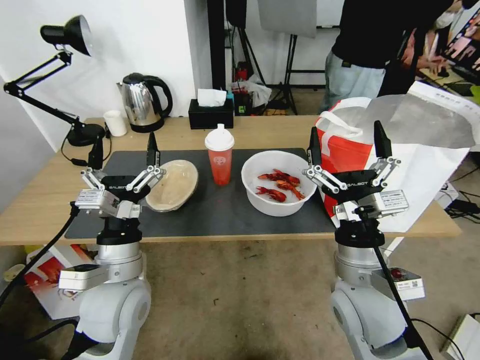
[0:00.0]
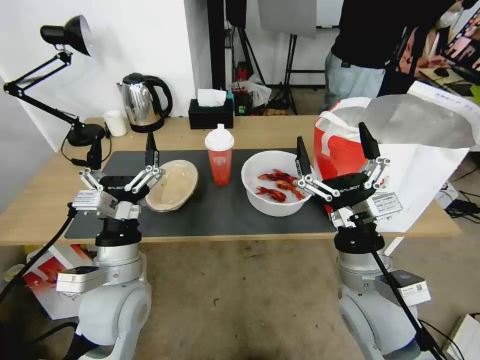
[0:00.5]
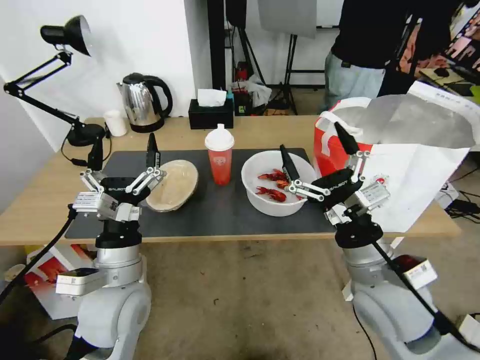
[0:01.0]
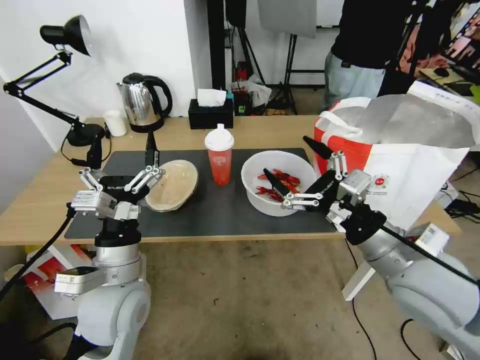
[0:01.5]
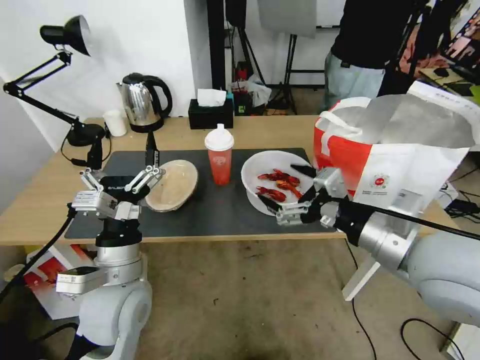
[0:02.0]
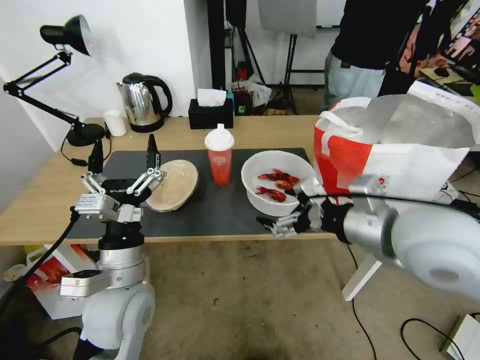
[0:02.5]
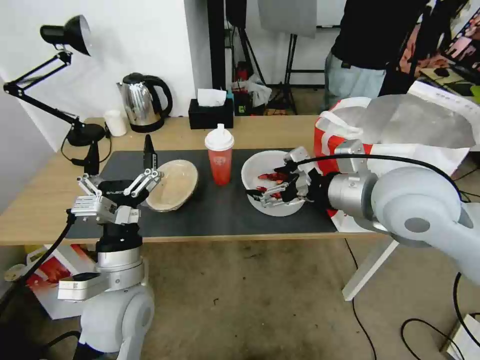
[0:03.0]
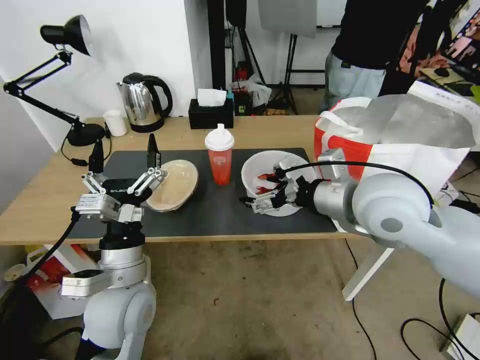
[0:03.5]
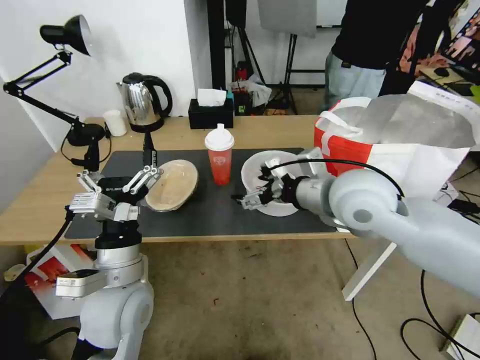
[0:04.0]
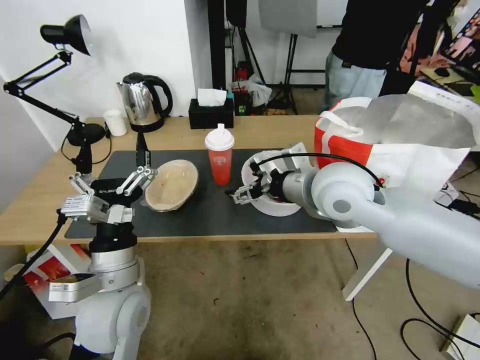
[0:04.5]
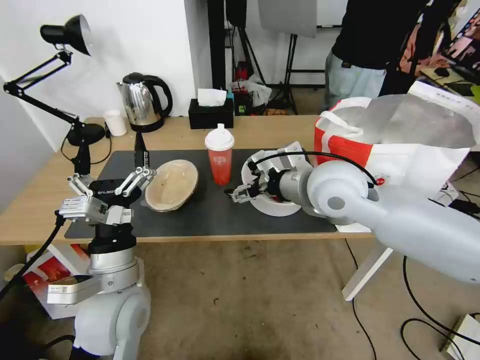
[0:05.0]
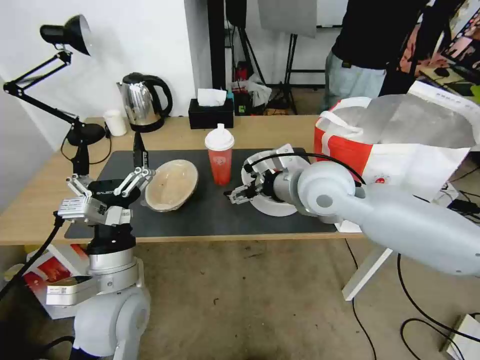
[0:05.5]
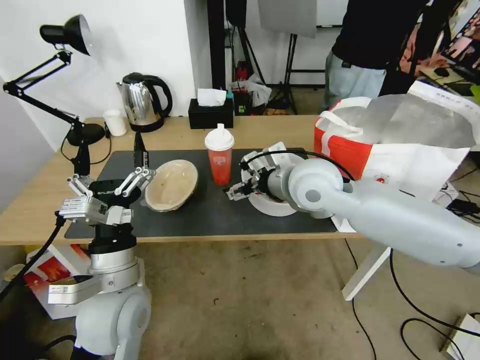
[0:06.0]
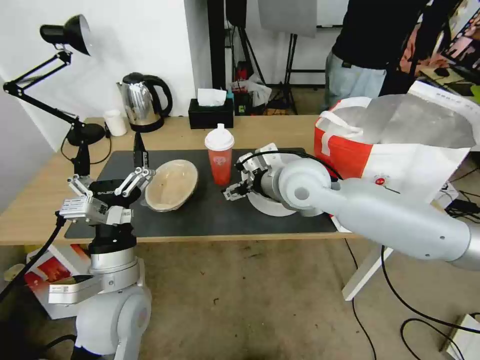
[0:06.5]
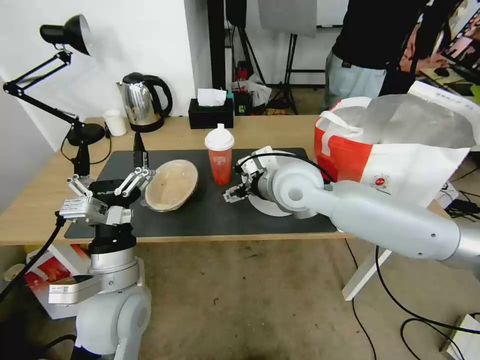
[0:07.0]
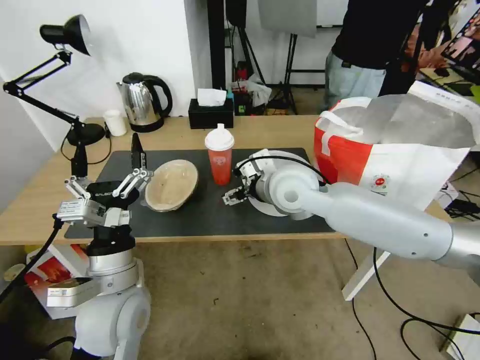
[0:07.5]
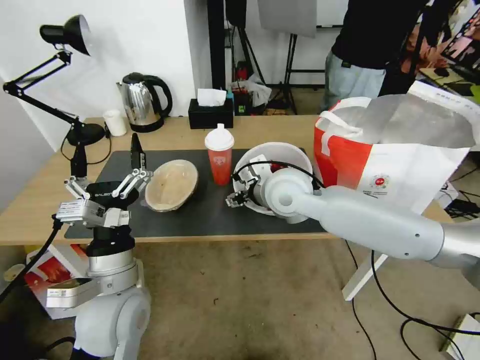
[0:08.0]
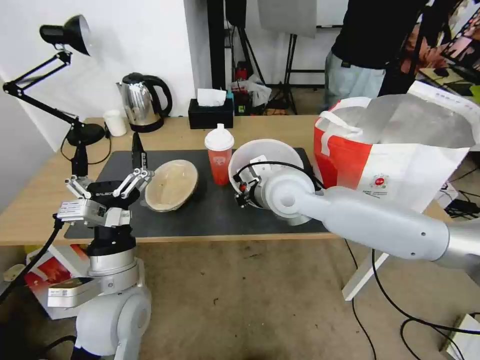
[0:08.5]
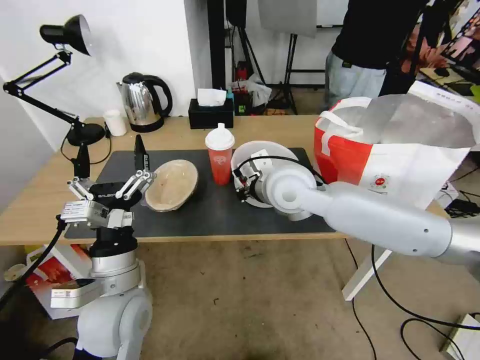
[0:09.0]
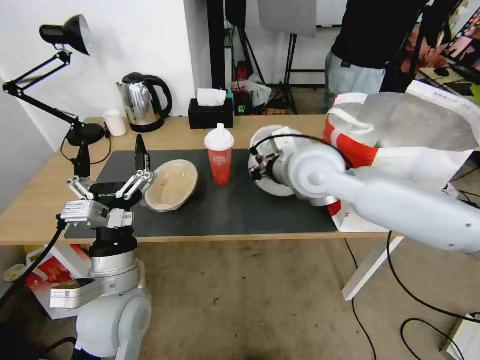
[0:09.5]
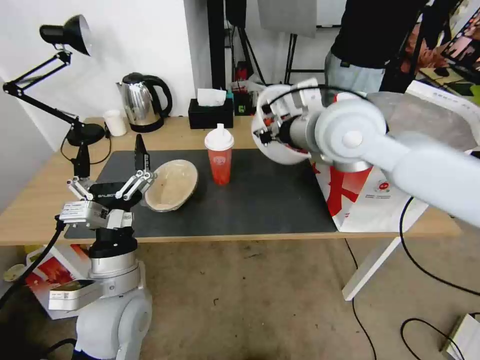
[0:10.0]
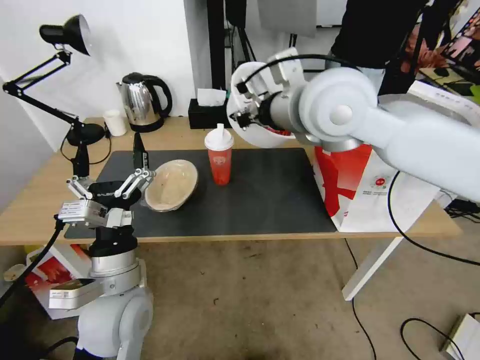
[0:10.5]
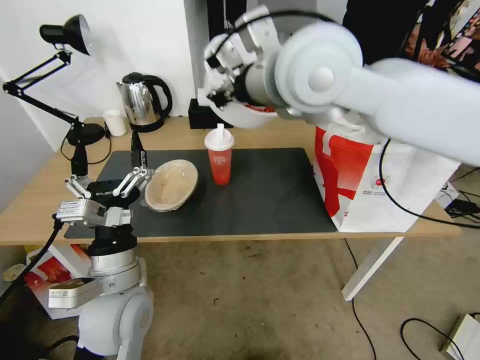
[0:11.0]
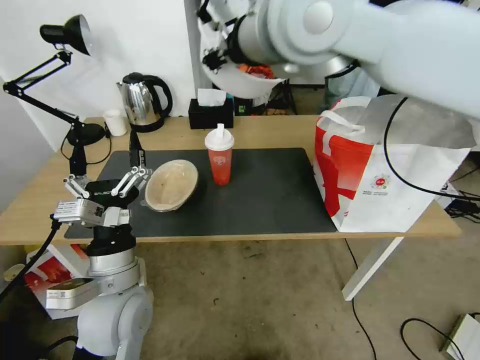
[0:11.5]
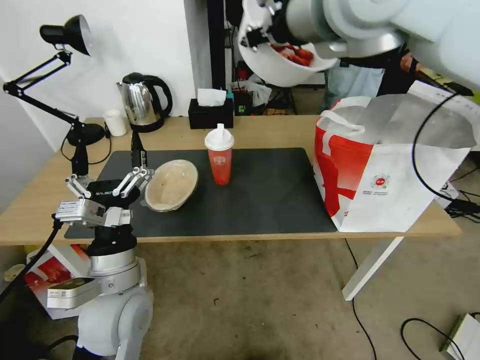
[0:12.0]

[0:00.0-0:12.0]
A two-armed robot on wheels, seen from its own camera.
Task of the whole recording: Pick up the trash from the table and place it into the takeout bag.
2.0 to 4.0 s: The right gripper is displaced forward and to the left by approximately 10 cm.
4.0 to 6.0 s: The right gripper goes some 10 cm to the left and forward.
6.0 to 8.0 s: The right gripper ends up approximately 5 cm from where it was.
8.0 to 10.0 s: The right gripper moves upward and to the right, approximately 15 cm, and closes up.
10.0 to 12.0 s: The right gripper heads upward, covering roughly 15 cm.

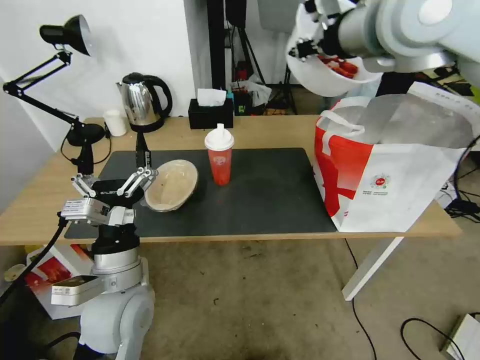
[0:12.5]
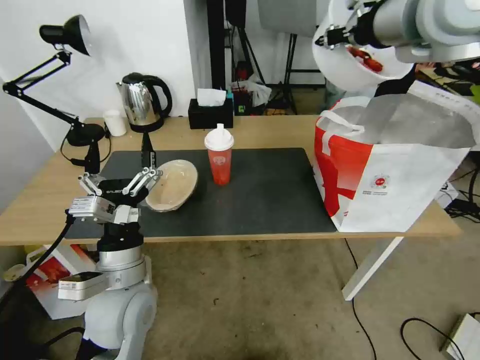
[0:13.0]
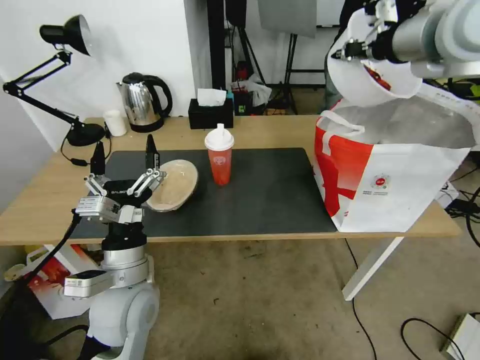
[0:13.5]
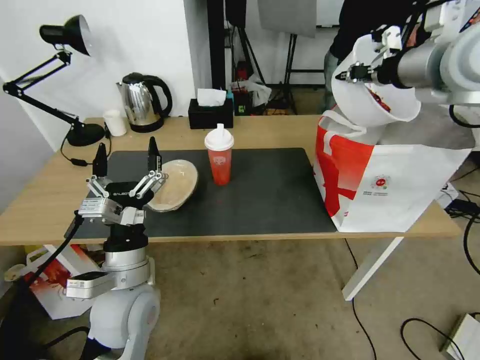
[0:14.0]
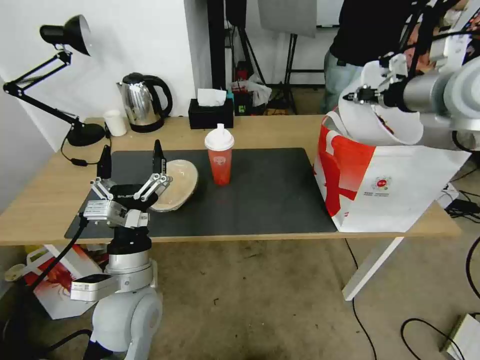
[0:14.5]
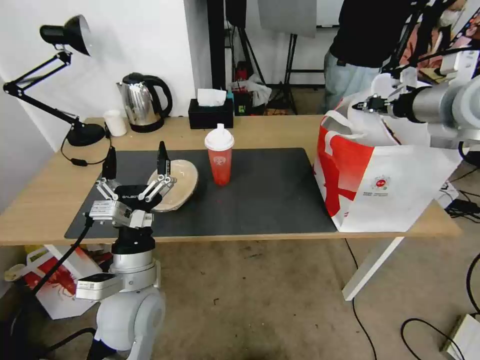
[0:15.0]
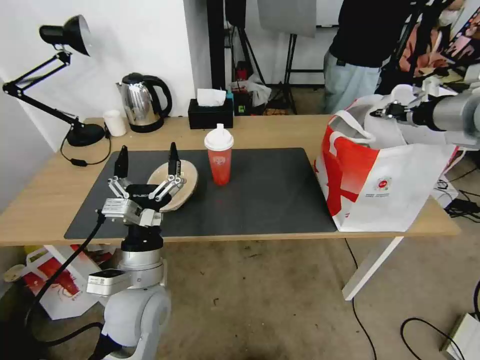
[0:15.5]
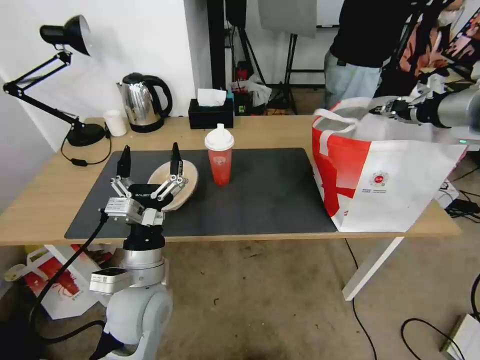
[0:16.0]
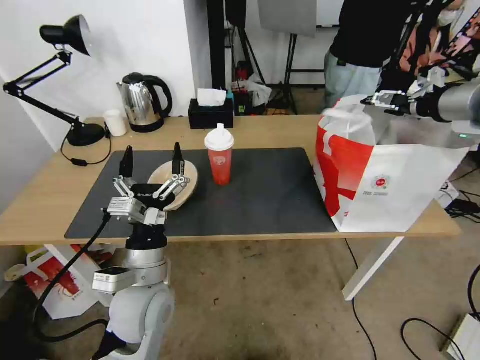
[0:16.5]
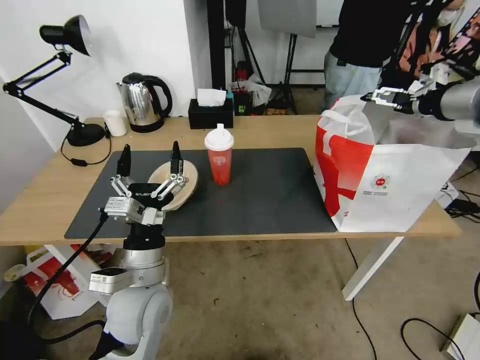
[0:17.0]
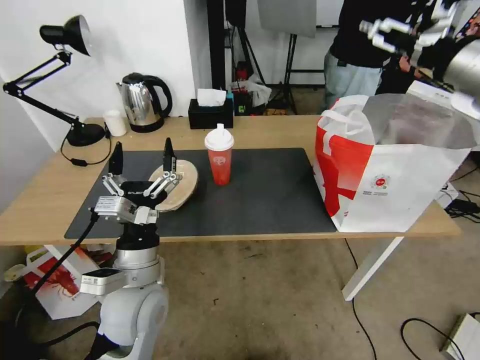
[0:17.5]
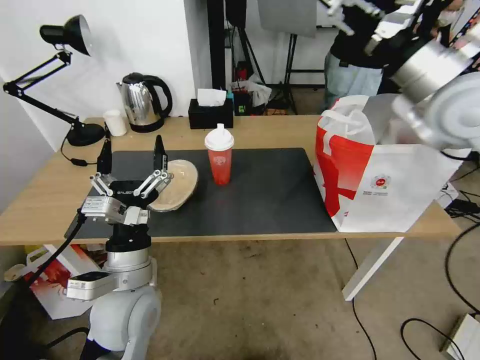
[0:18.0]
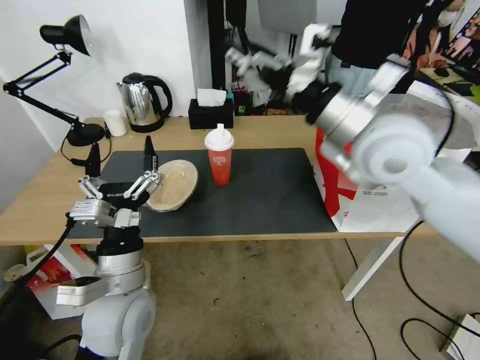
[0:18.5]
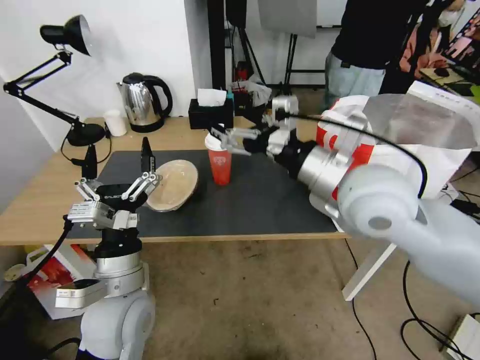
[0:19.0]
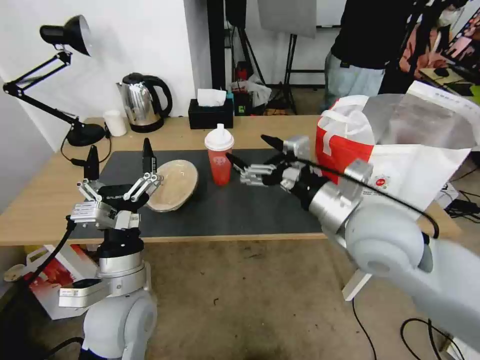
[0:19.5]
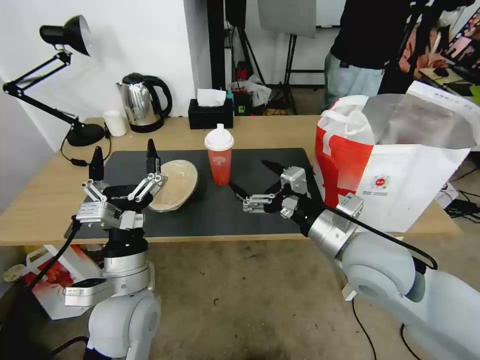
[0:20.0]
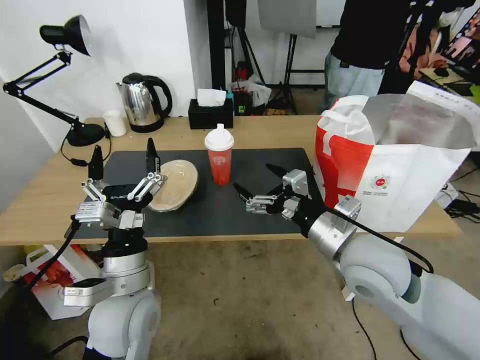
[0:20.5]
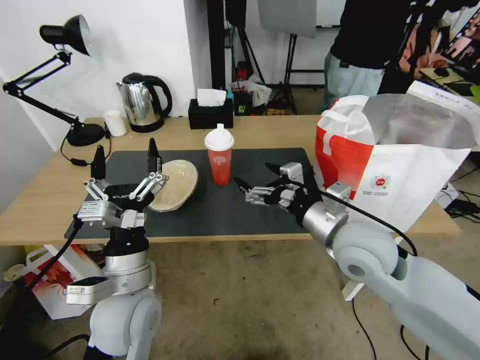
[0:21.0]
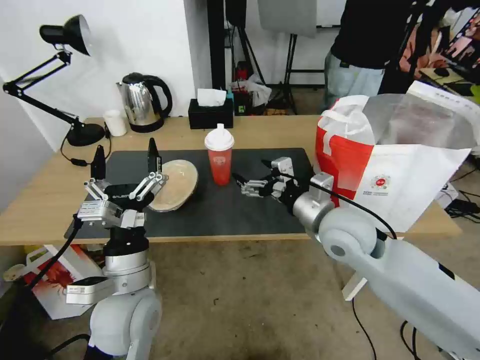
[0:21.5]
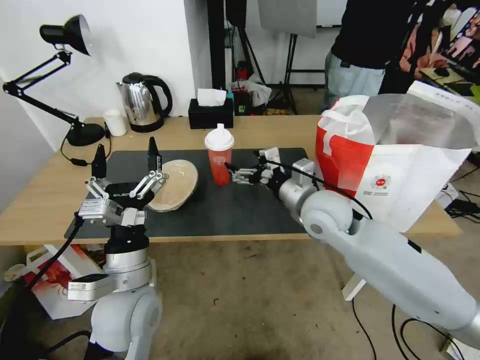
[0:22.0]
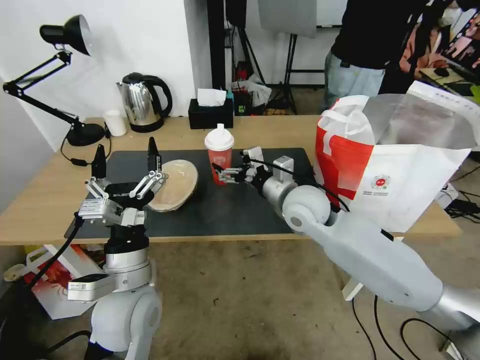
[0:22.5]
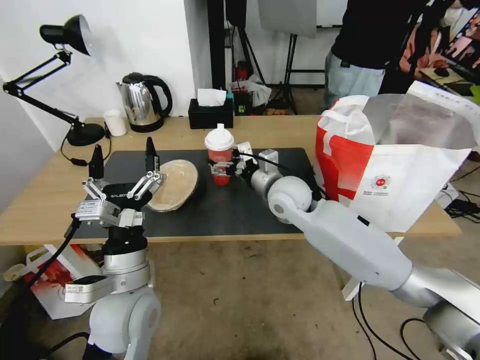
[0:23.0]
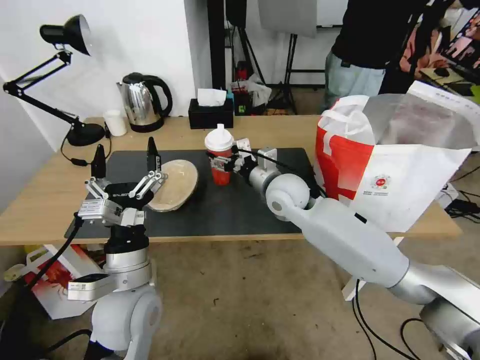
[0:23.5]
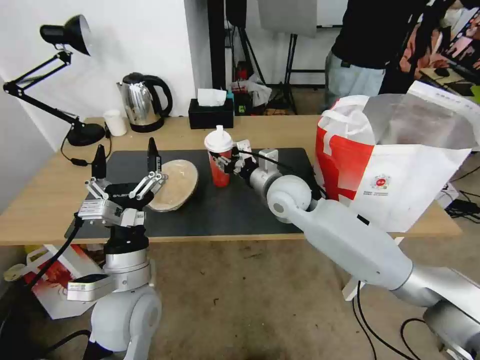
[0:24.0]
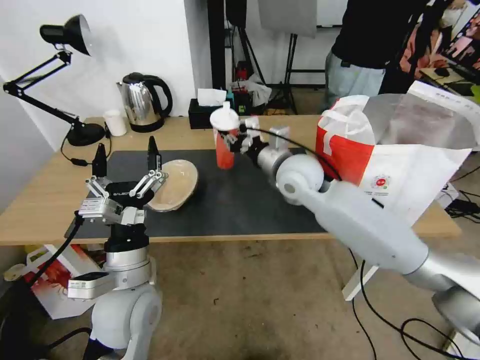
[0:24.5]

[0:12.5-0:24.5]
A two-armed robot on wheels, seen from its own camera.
Task of the whole recording: Pick up the trash from the table and place it into the takeout bag.
12.5 to 14.5 s: The right gripper shifts some 20 cm to the right and downward.
14.5 to 16.5 s: The right gripper moves to the right, about 5 cm, and opens.
16.5 to 18.5 s: The right gripper travels to the left by roughly 20 cm.
18.5 to 20.5 s: The right gripper goes approximately 20 cm downward and backward.
20.5 to 22.5 s: The right gripper travels forward and to the left by roughly 15 cm.
22.5 to 24.5 s: The right gripper shifts by some 5 cm, and closes up.

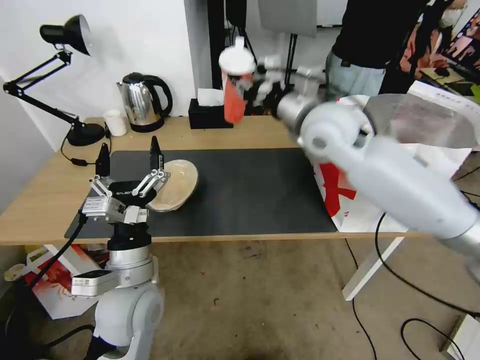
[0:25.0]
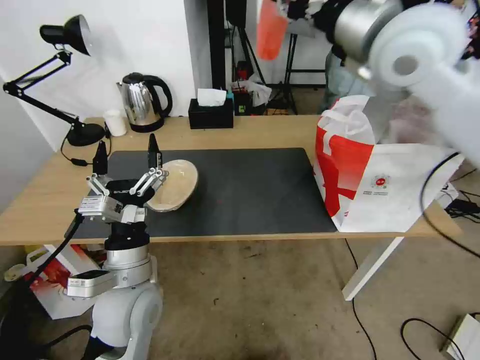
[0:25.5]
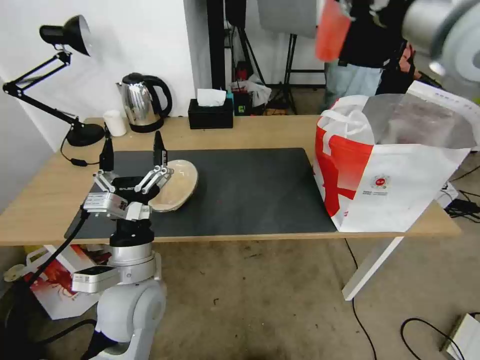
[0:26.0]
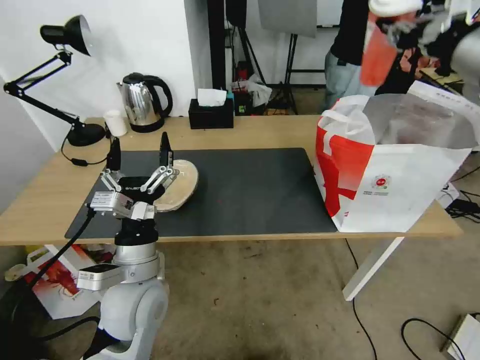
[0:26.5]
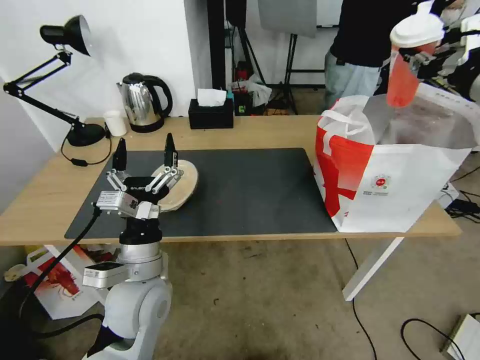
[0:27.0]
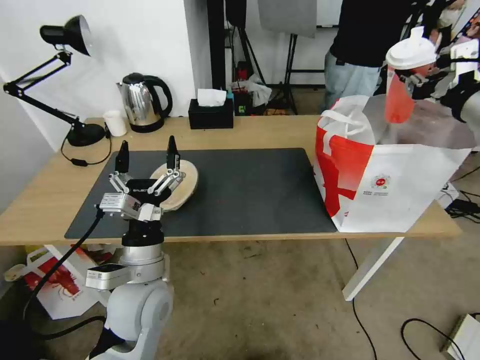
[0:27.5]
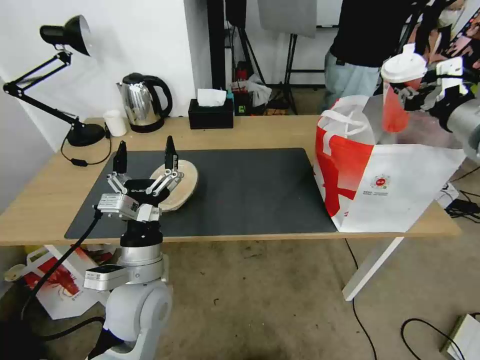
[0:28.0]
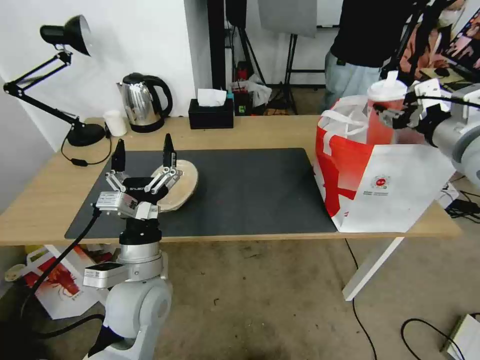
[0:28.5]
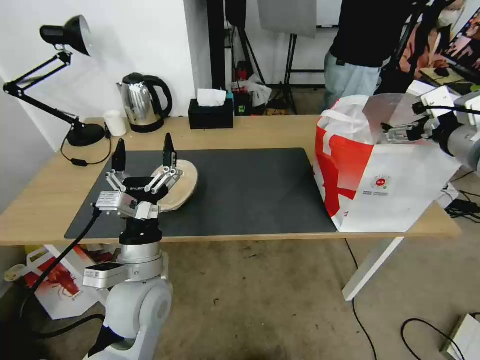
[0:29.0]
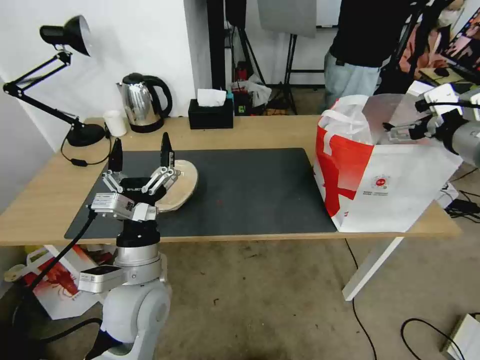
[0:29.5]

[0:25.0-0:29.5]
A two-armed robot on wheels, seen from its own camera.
Task of the whole recording: Pick up the trash from the table and place it into the takeout bag.
25.0 to 27.0 s: The right gripper travels to the right and backward by approximately 25 cm.
27.0 to 29.5 s: The right gripper moves roughly 5 cm, and opens its fingers.
